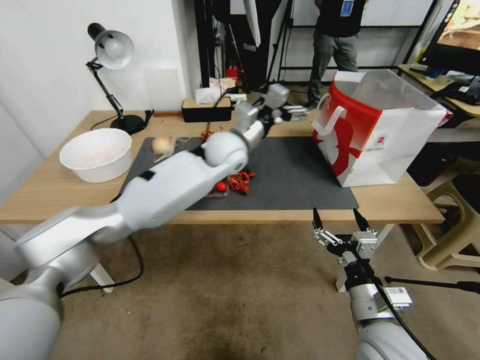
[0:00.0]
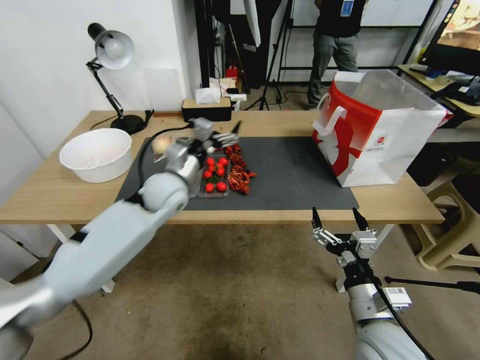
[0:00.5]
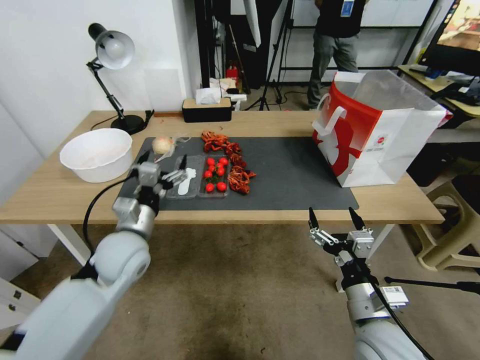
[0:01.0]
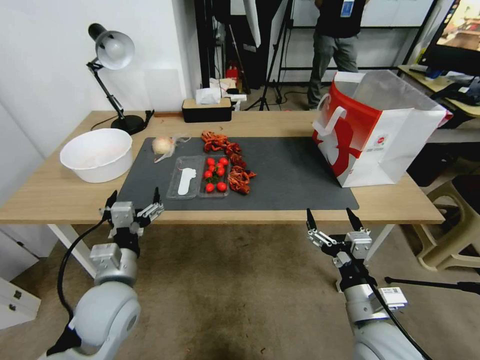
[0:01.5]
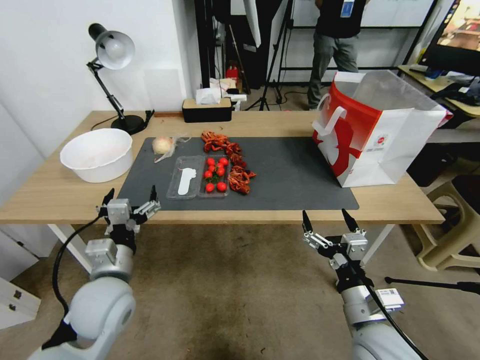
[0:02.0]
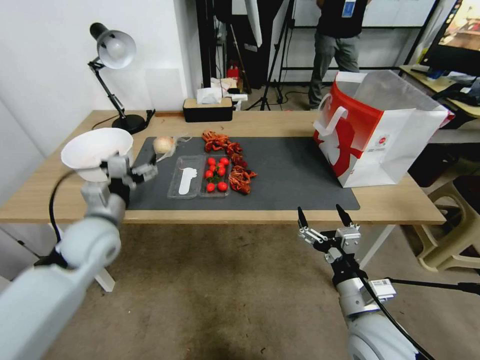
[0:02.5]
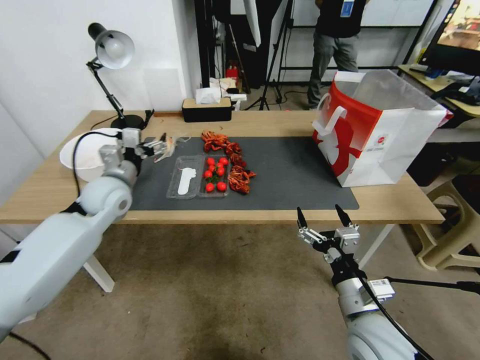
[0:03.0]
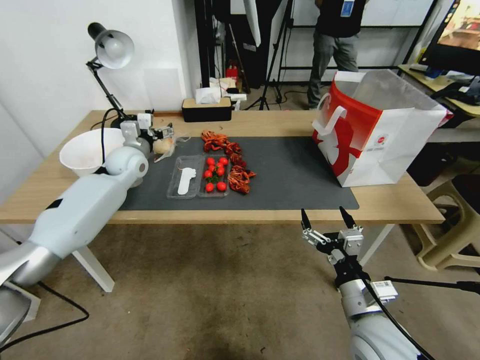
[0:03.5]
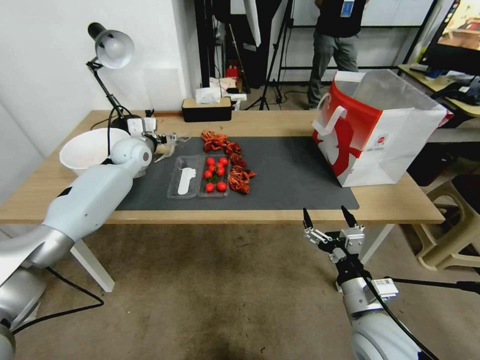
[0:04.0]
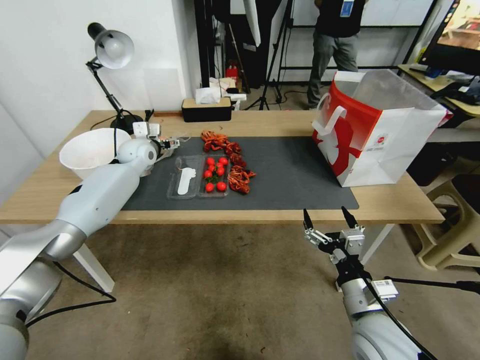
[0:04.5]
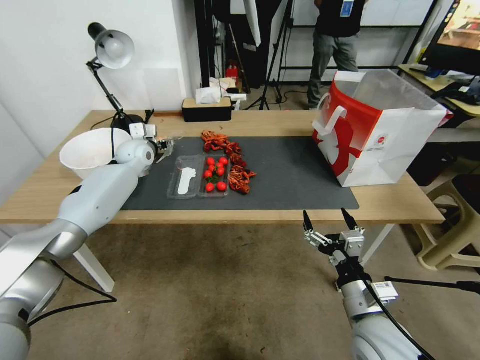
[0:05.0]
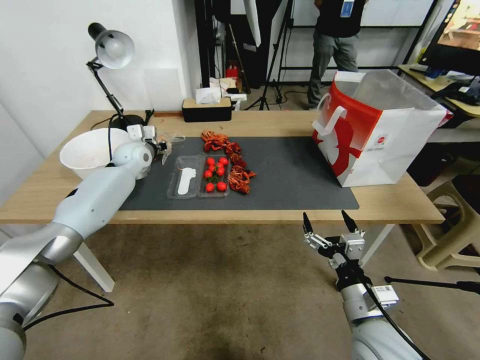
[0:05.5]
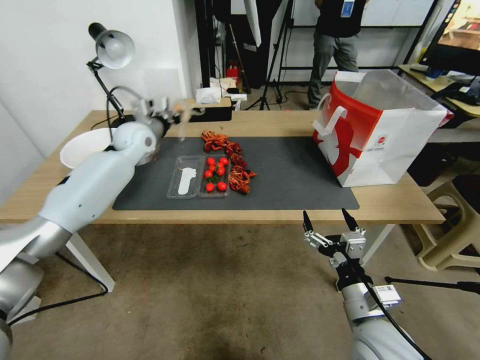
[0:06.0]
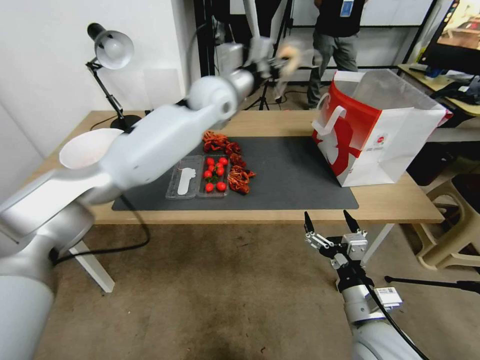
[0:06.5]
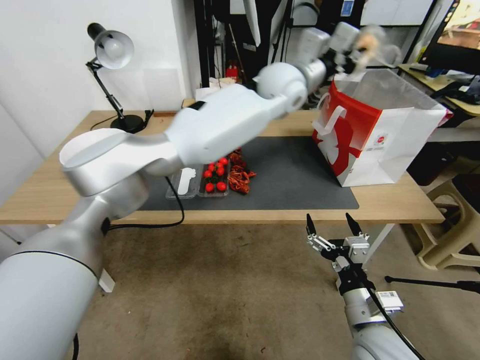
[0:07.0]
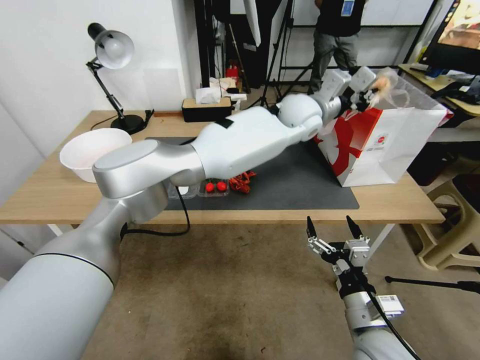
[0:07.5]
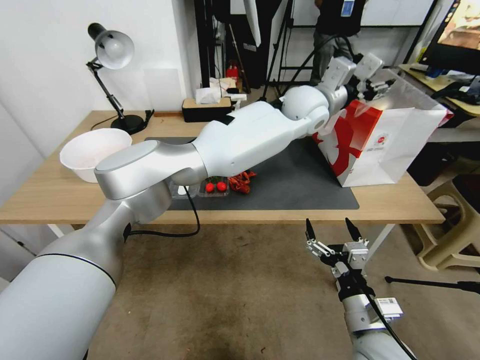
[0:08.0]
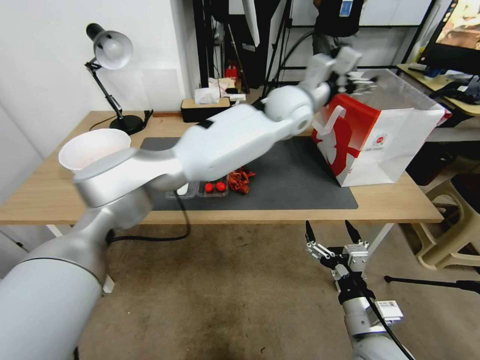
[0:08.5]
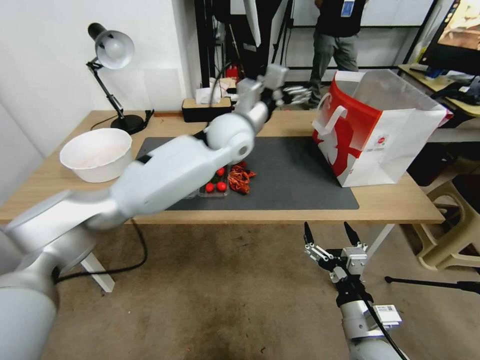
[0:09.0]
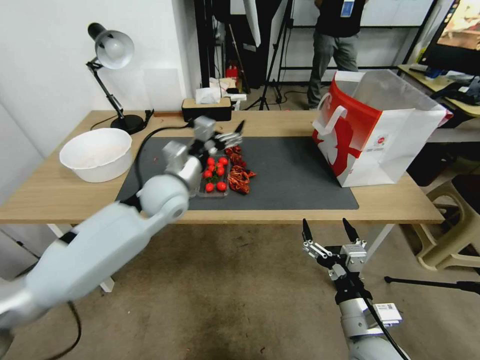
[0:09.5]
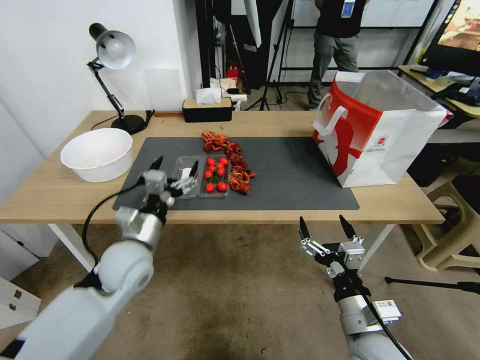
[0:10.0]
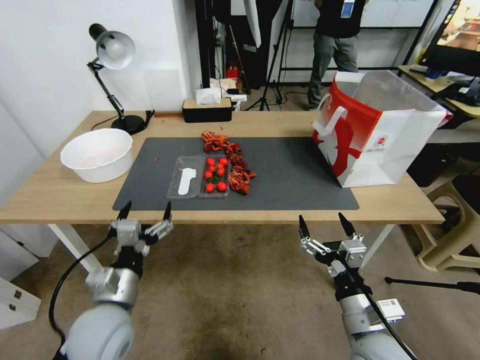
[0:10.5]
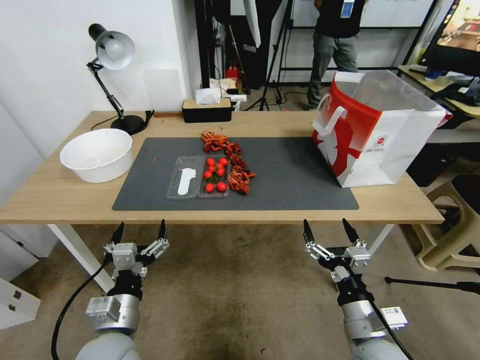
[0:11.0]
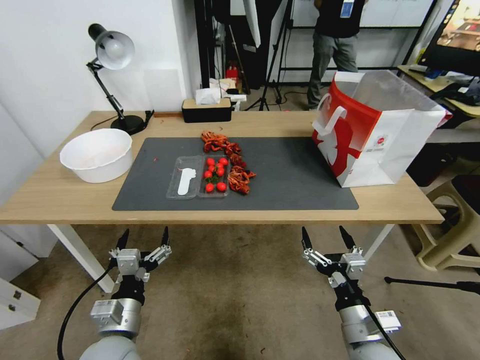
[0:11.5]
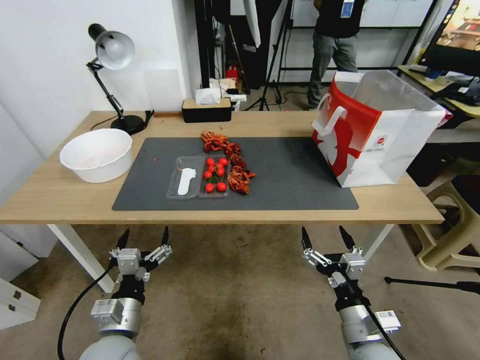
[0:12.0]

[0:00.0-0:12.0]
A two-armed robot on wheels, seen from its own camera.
0:00.0 to 0:02.0: The left gripper travels backward, to the left and downward by some 35 cm.
0:02.0 to 0:04.0: The left gripper is displaced forward by some 35 cm.
0:04.0 to 0:06.0: The left gripper travels upward by roughly 5 cm, and closes.
0:06.0 to 0:08.0: The left gripper goes about 40 cm to the right, and opens up.
0:08.0 to 0:10.0: The left gripper travels to the left, backward and downward by some 50 cm, and opens its fingers.
0:10.0 to 0:12.0: The left gripper is displaced backward and downward by some 15 cm.
